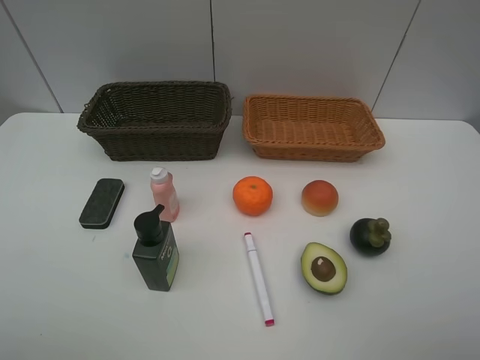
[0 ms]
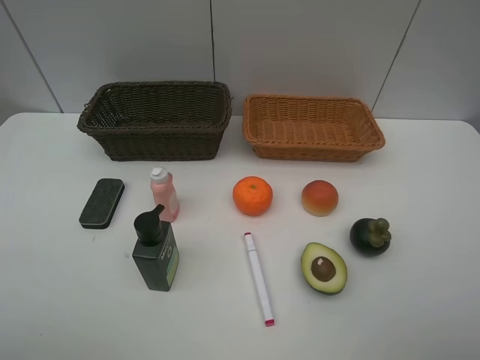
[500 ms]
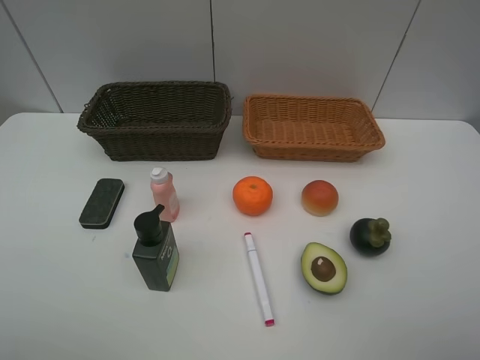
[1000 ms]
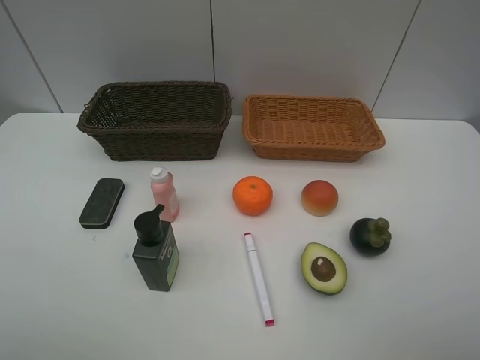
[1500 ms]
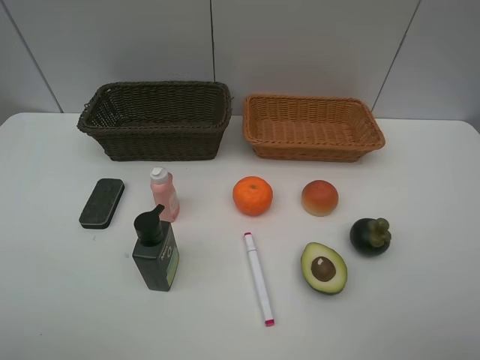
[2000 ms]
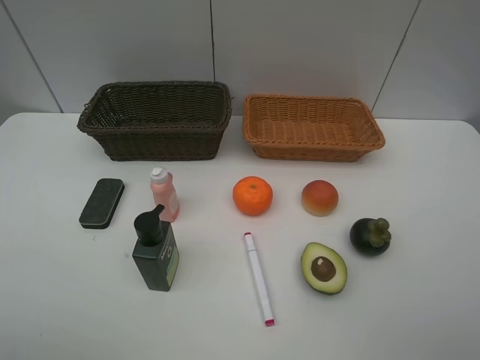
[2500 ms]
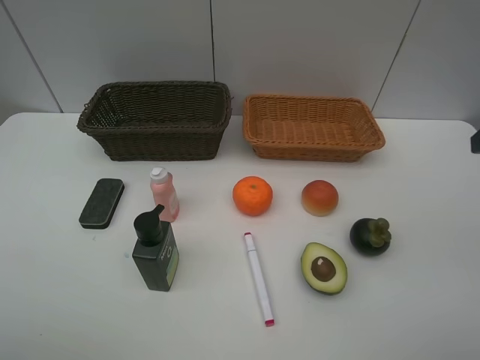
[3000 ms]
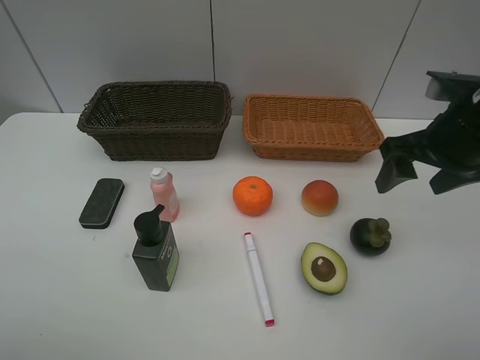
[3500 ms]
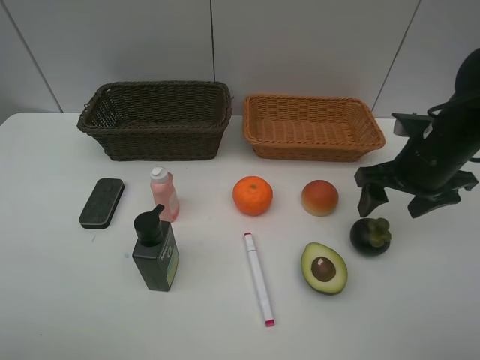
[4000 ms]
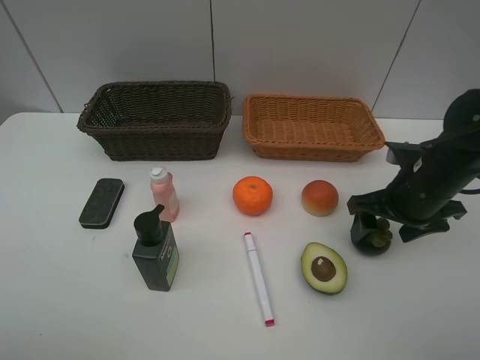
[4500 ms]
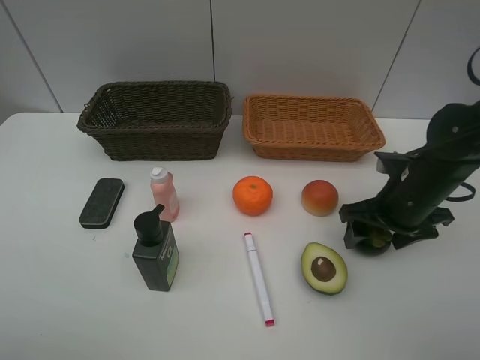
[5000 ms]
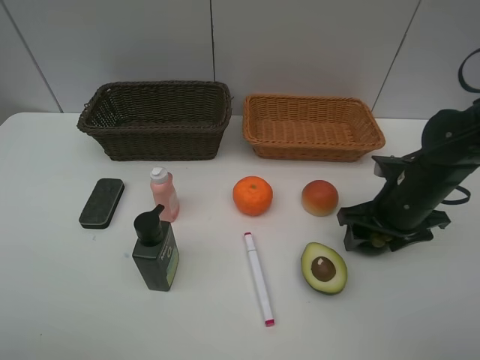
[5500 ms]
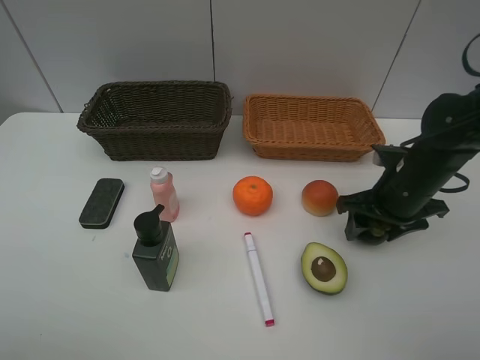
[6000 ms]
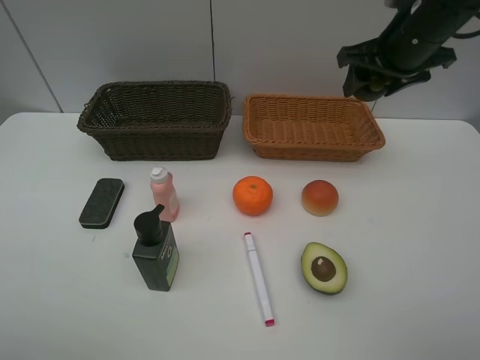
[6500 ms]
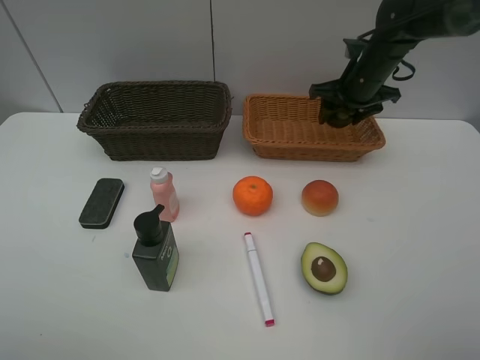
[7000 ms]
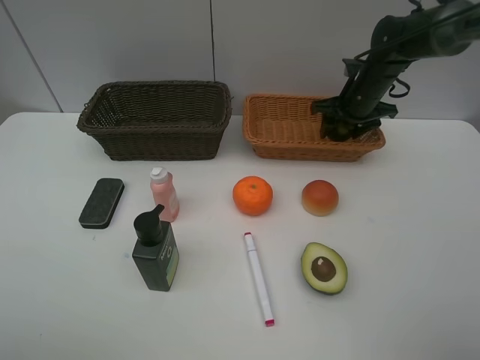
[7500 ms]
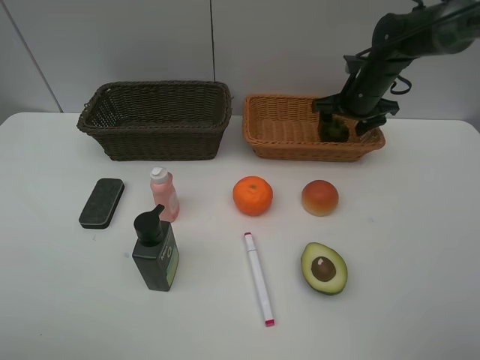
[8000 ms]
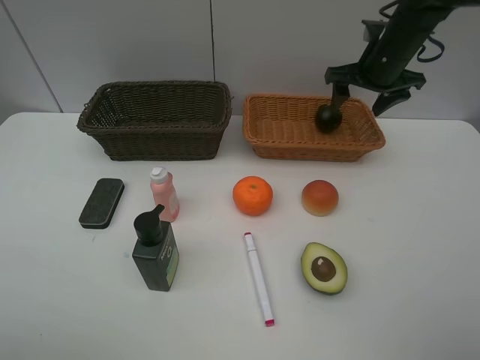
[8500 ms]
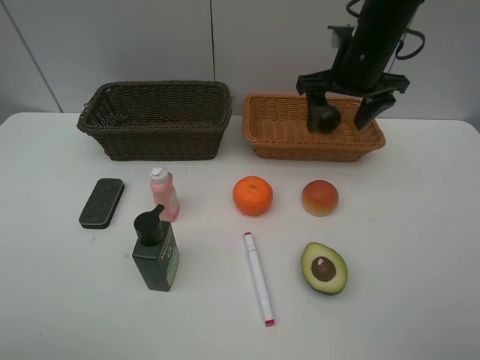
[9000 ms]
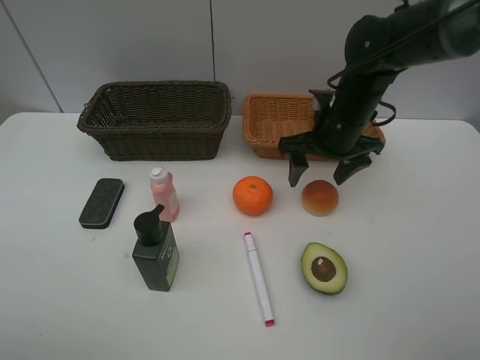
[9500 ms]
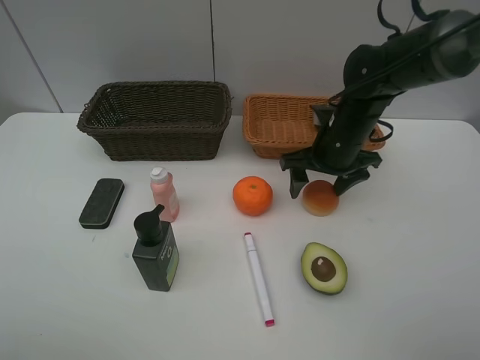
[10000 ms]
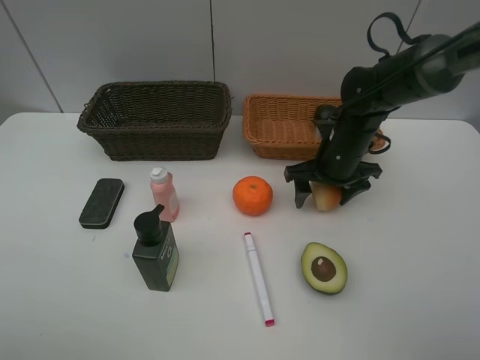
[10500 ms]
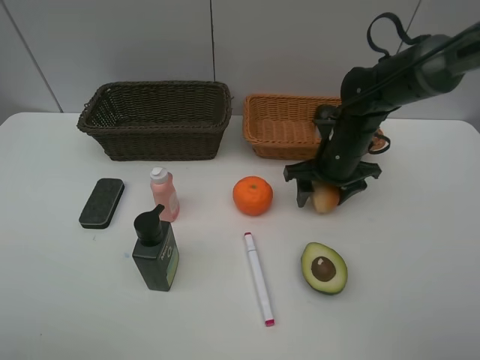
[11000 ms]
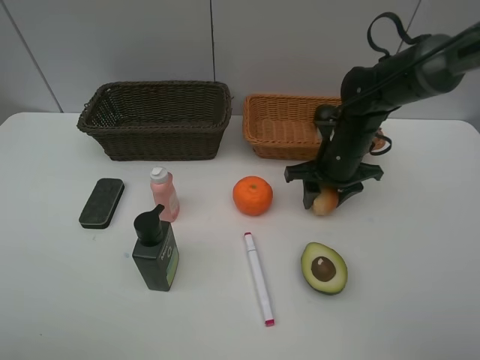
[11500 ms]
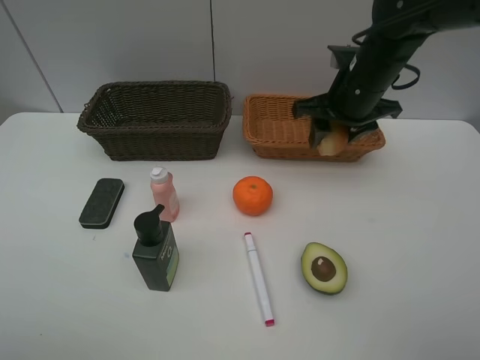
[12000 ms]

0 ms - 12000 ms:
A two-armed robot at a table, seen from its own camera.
Task of the whole recording: Place multiple objects separately in different baskets.
Step, 0 ms - 6000 ms: Pick up the mangosteen with right gripper.
Step, 6500 ms - 8000 ms: Place the mangosteen in the light basket with right gripper.
Step, 8500 ms - 11500 ms: Pick up egg yolk pastry with right gripper.
0 ms - 2000 ms: Neither gripper changes place.
2000 ms - 4000 ms: The right gripper goes approximately 30 cm forward and downward.
4000 ms - 6000 ms: The grippers move only a little.
6000 ms - 8000 ms: The right gripper heads forward, covering approximately 20 cm.
8000 ms - 10000 ms: The right gripper is displaced backward and to the left by roughly 15 cm.
10000 ms - 12000 ms: The right gripper travels upward by approximately 10 cm, and closes up.

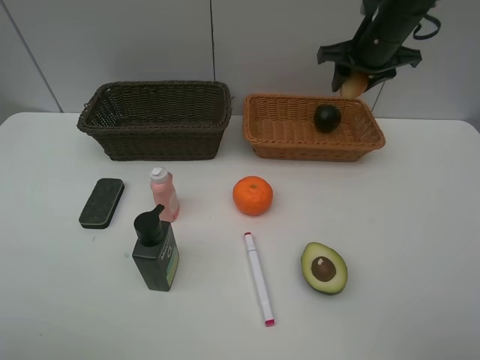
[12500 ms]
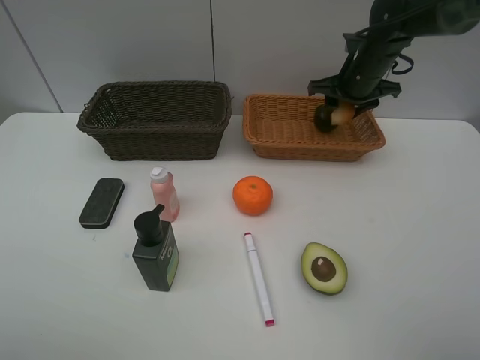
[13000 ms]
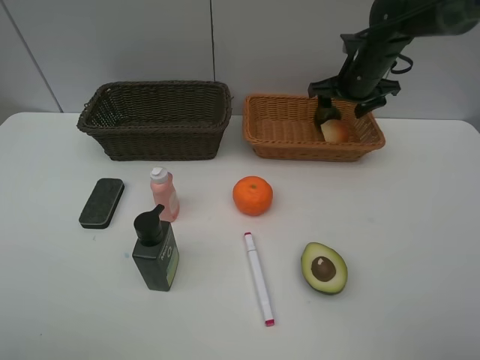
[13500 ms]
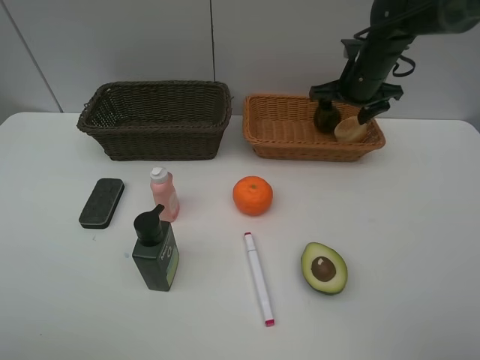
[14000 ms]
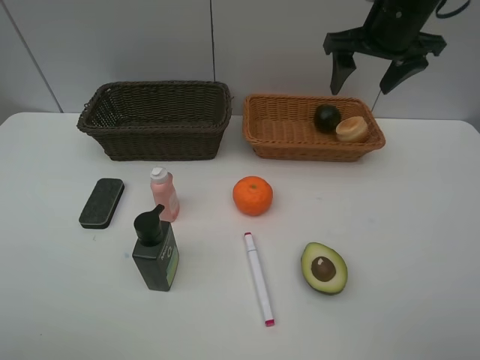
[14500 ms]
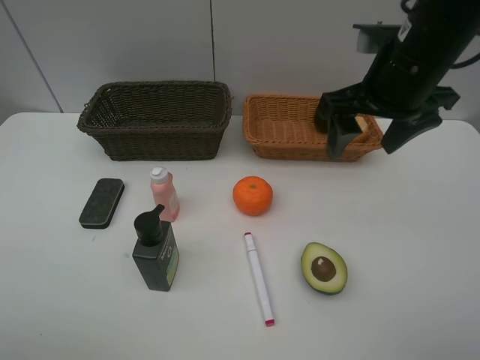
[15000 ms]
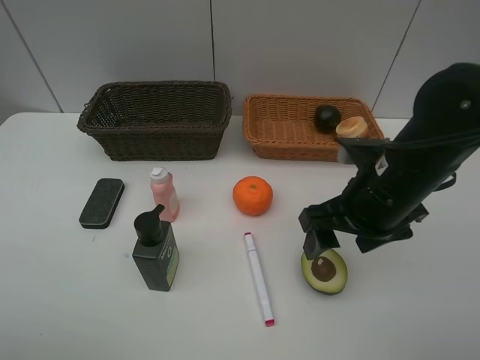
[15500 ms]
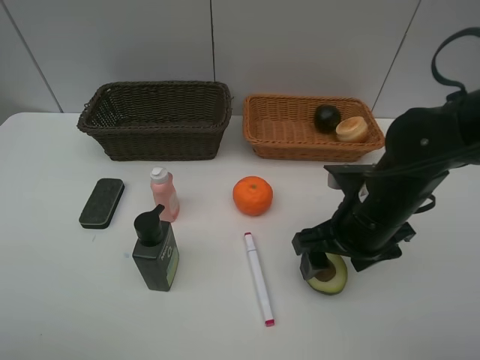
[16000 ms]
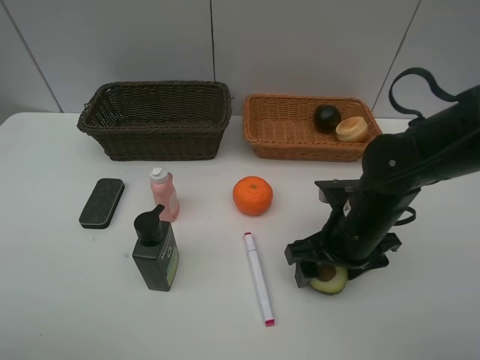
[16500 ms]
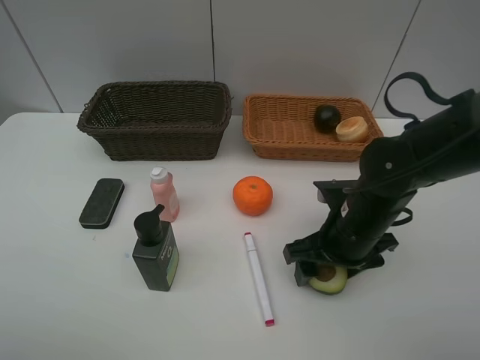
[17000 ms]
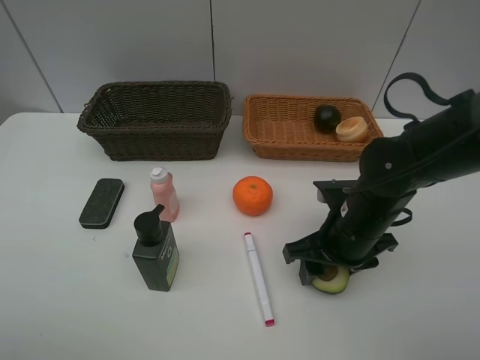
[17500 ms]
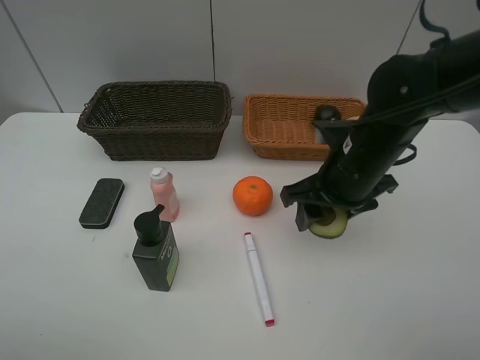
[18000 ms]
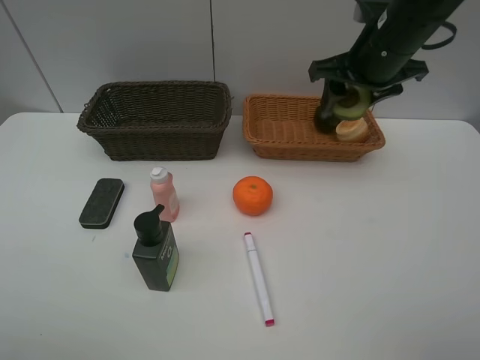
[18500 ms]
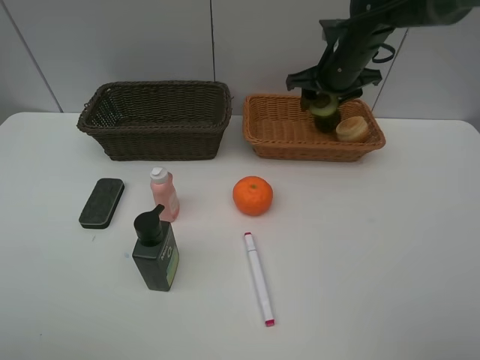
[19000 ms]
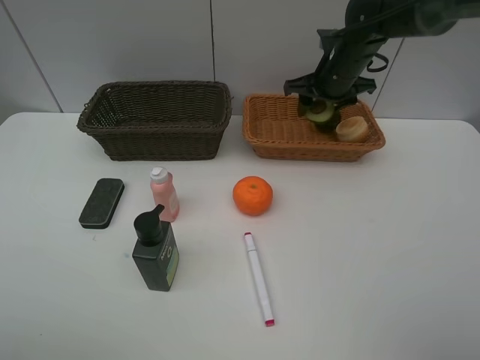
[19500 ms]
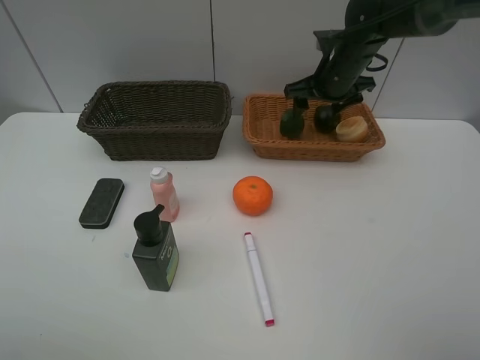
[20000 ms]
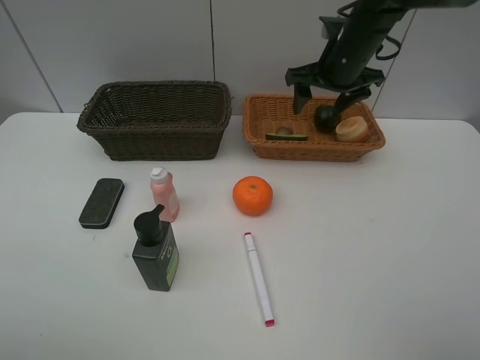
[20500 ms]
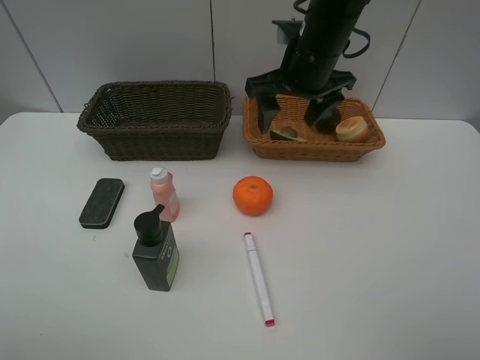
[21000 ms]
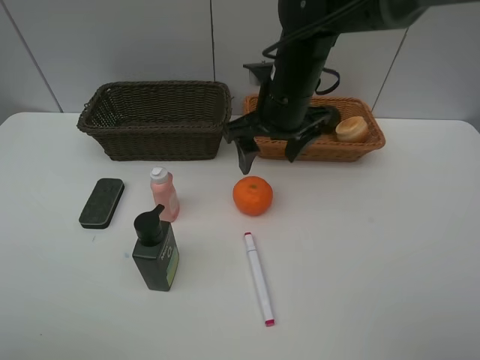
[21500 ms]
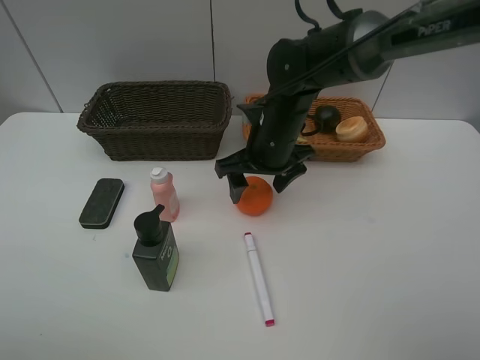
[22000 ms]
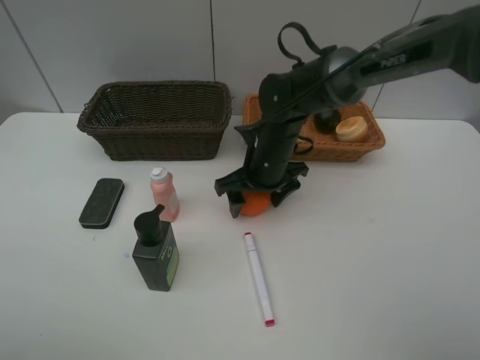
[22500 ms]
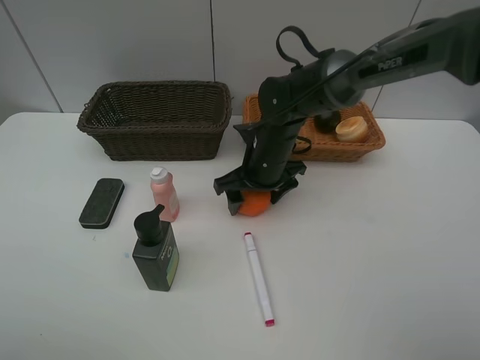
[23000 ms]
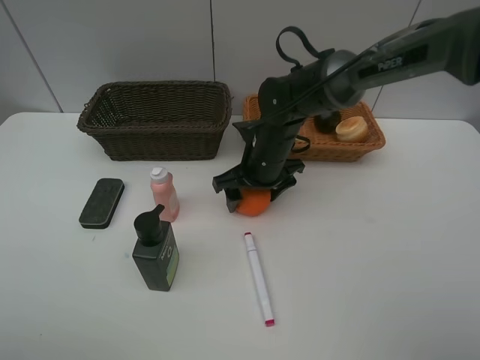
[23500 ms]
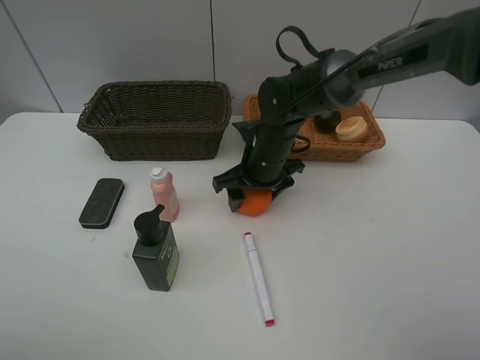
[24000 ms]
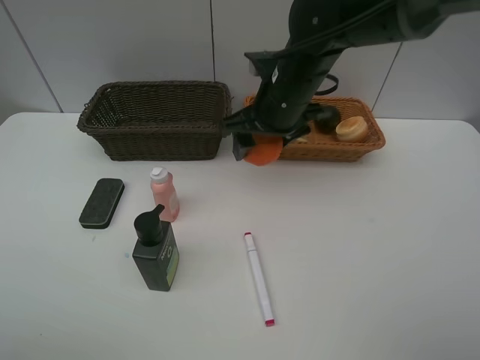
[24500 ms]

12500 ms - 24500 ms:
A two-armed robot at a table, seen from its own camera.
Task of the whole recording: Place multiple objects separately in different baskets.
Step, 12500 ms - 14000 ms: Place the egg yolk pastry in the light basket with right gripper.
Step, 14500 ms - 17500 ms: Pick up the avocado with right gripper.
Step, 18000 ms - 20000 ms: Place the avocado in the light basket with right gripper.
Step, 20500 ms - 24000 ms: Pick up the orange with right gripper.
12500 ms - 14500 ms: The right gripper heads backward and upward, covering about 10 cm, and opens its fingers.
14500 ms - 16500 ms: The right gripper travels downward and backward by roughly 25 cm.
16500 ms - 18500 ms: The right gripper heads upward and forward, covering about 20 cm.
18500 ms - 20500 ms: The right gripper is displaced forward by roughly 5 cm.
20500 ms - 22500 ms: The right gripper goes approximately 20 cm downward, to the left and backward.
22500 ms - 24500 ms: The right gripper shifts some 10 cm upward.

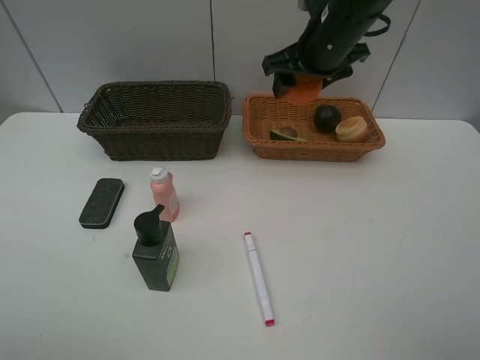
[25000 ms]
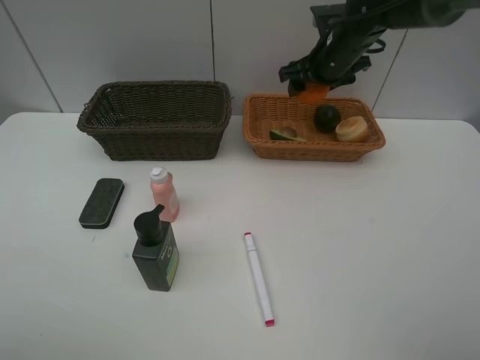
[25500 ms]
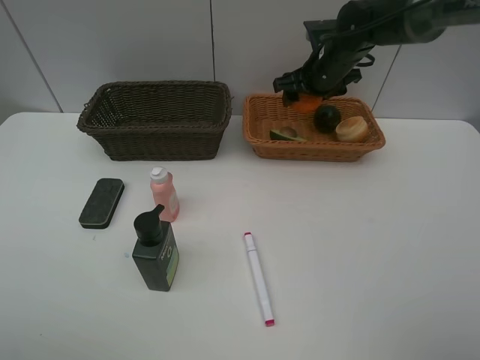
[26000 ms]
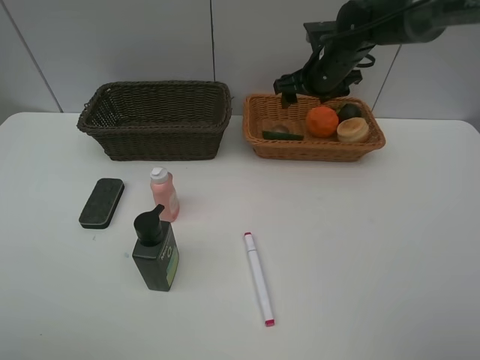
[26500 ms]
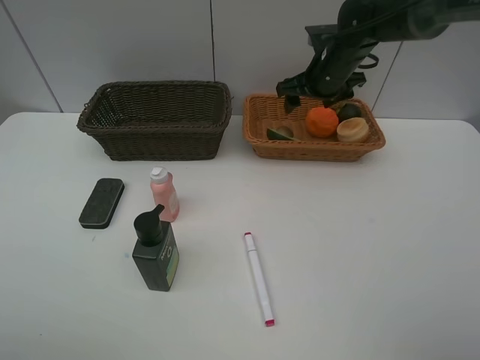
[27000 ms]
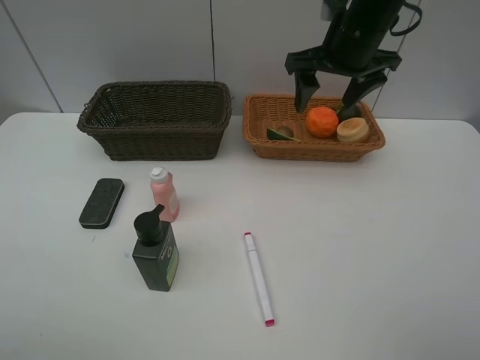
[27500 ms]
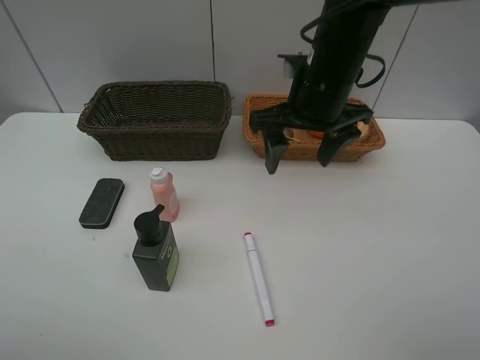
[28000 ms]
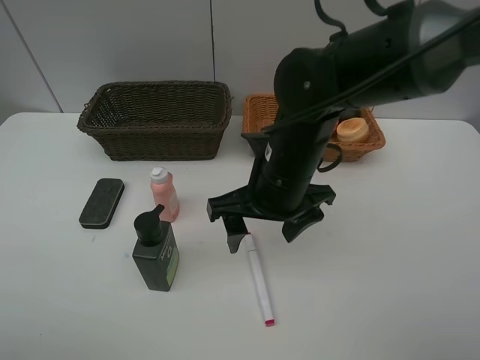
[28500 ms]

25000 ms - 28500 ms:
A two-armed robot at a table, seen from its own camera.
Task of the whole recording: Place multiple objects separately in different baskets.
Step, 25000 ms - 26500 ms: Place the orange in the light basket with right gripper.
25000 ms - 27000 ms: The right gripper moves downward and forward, roughly 10 cm.
27000 ms - 28500 ms: The right gripper travels backward and to the left by approximately 25 cm.
